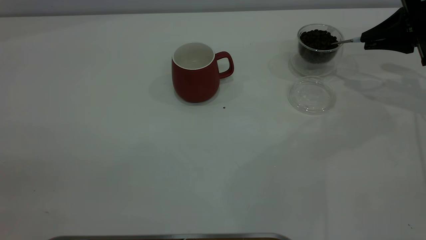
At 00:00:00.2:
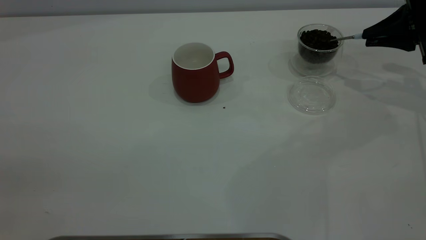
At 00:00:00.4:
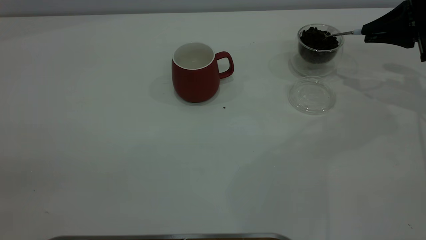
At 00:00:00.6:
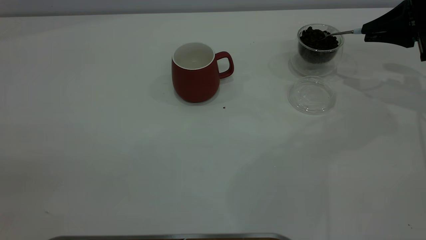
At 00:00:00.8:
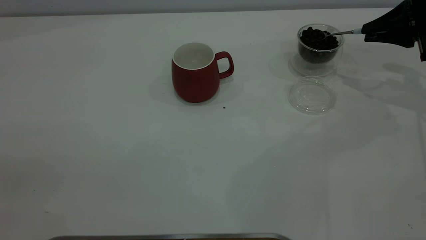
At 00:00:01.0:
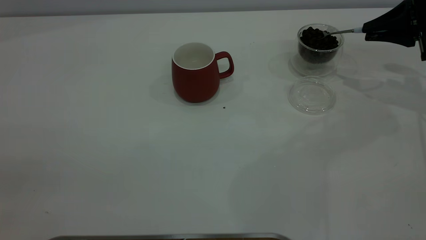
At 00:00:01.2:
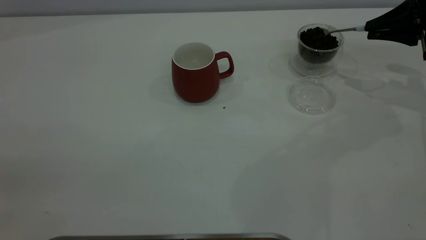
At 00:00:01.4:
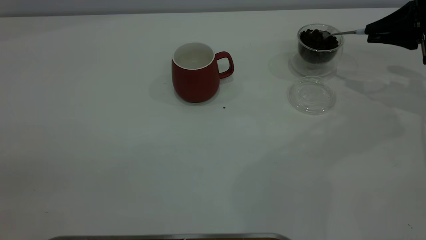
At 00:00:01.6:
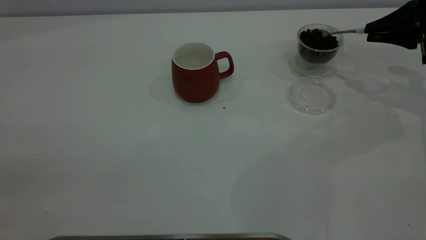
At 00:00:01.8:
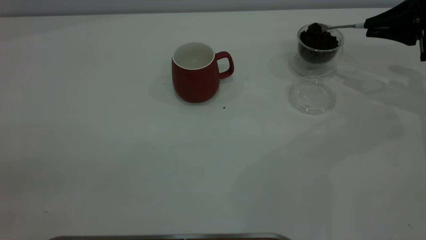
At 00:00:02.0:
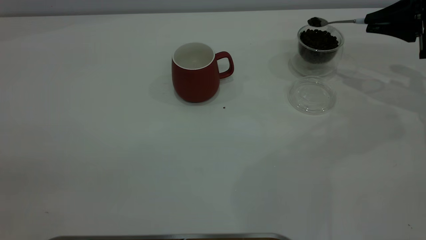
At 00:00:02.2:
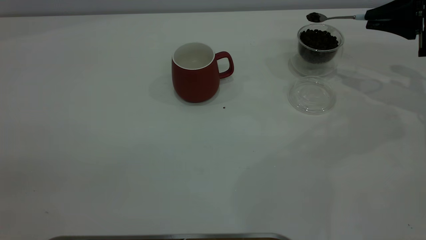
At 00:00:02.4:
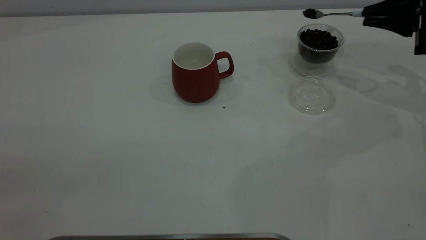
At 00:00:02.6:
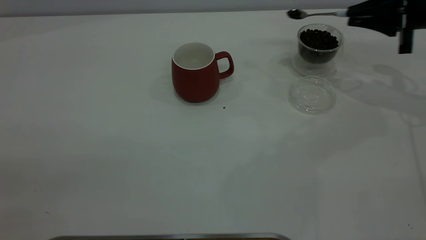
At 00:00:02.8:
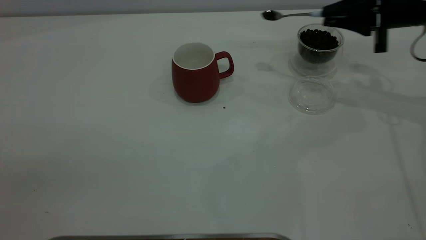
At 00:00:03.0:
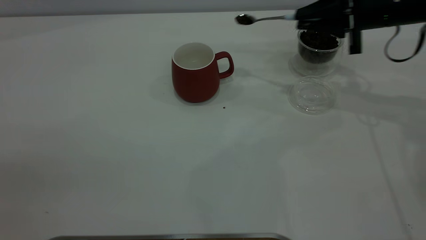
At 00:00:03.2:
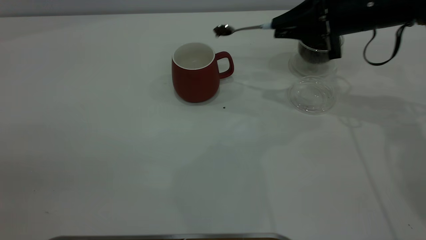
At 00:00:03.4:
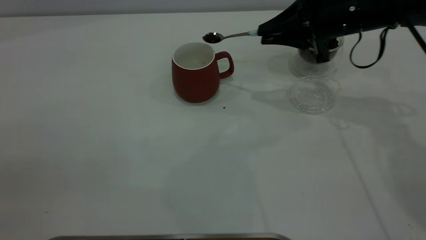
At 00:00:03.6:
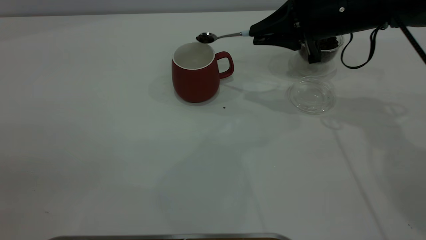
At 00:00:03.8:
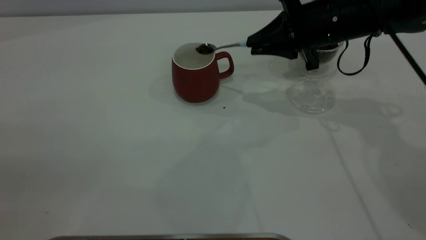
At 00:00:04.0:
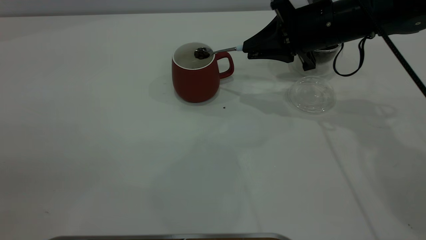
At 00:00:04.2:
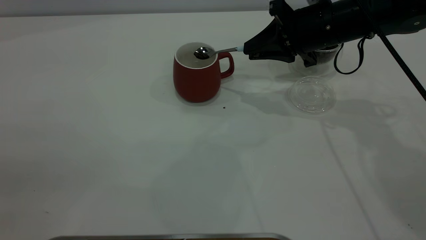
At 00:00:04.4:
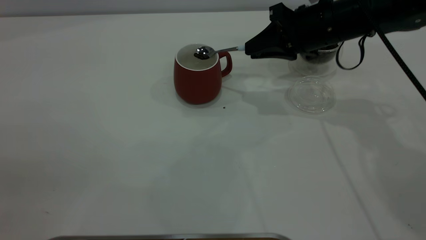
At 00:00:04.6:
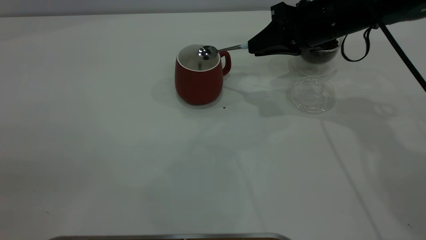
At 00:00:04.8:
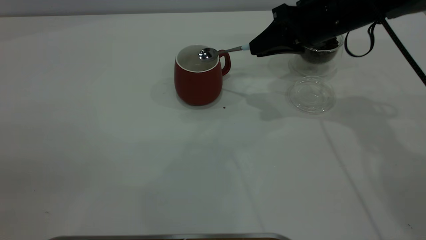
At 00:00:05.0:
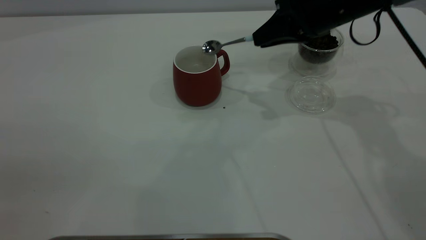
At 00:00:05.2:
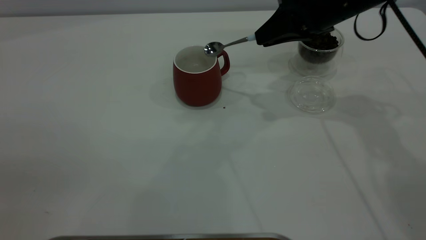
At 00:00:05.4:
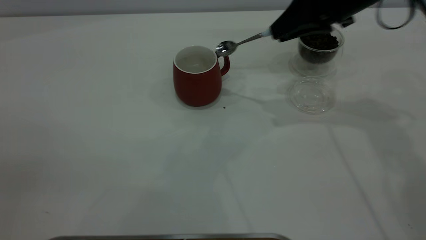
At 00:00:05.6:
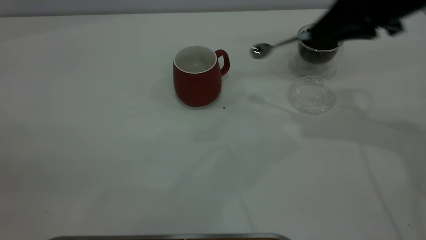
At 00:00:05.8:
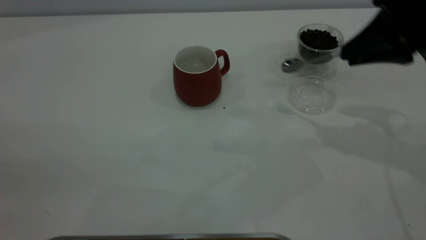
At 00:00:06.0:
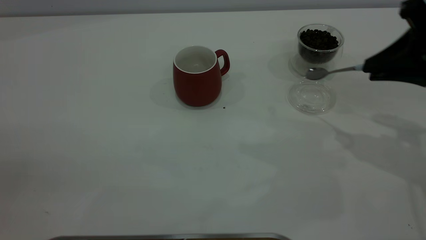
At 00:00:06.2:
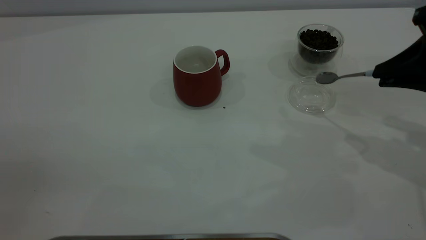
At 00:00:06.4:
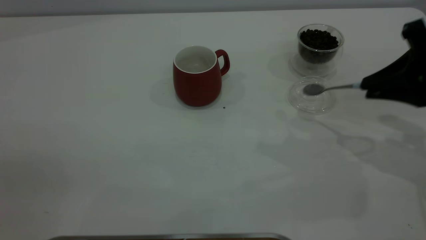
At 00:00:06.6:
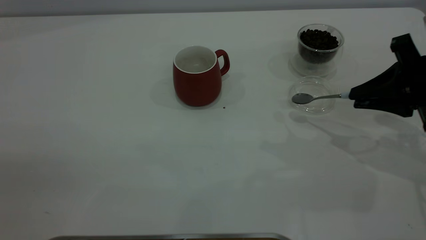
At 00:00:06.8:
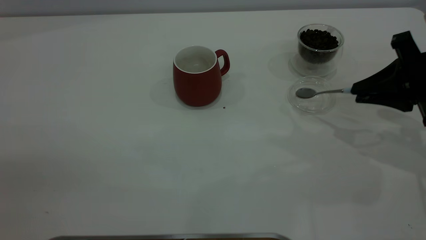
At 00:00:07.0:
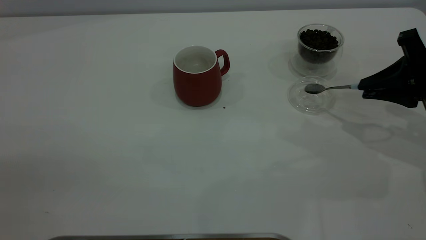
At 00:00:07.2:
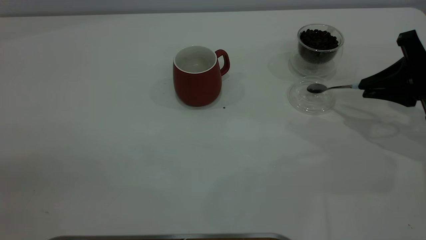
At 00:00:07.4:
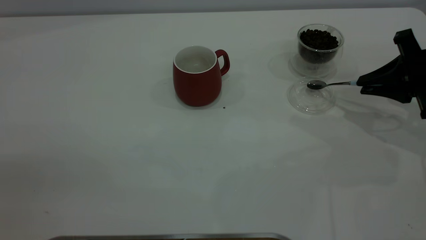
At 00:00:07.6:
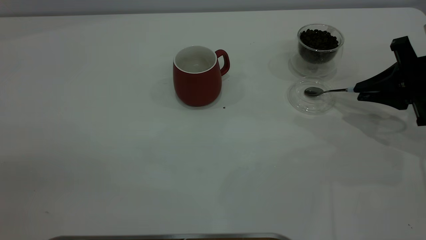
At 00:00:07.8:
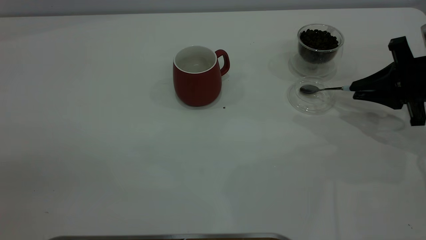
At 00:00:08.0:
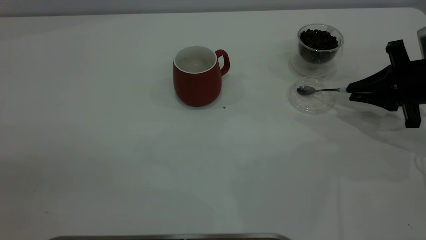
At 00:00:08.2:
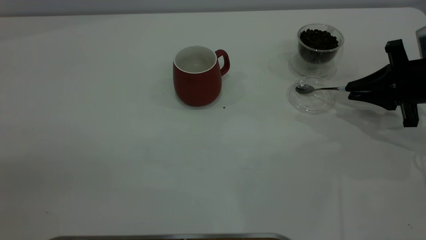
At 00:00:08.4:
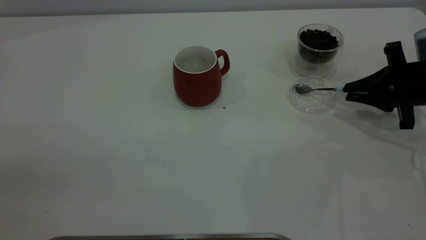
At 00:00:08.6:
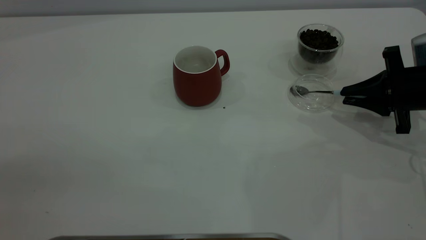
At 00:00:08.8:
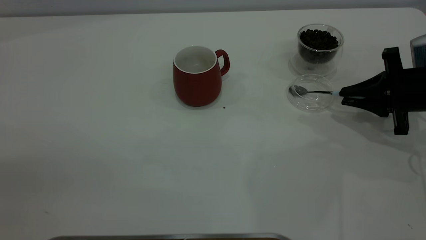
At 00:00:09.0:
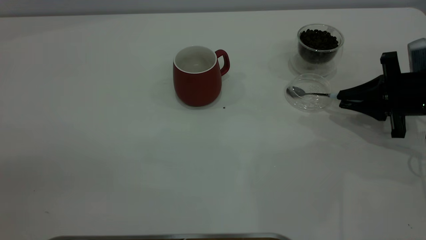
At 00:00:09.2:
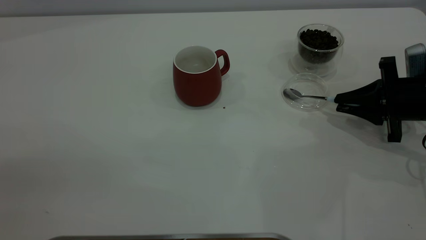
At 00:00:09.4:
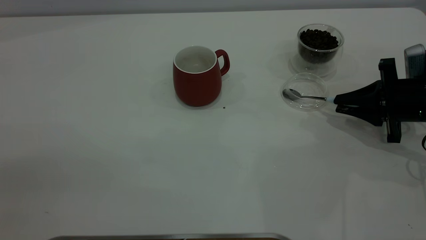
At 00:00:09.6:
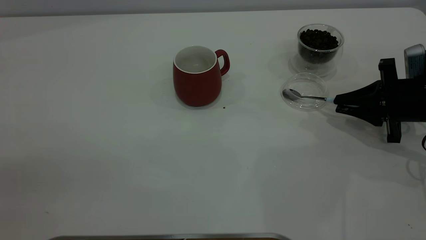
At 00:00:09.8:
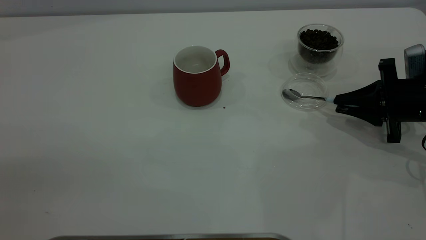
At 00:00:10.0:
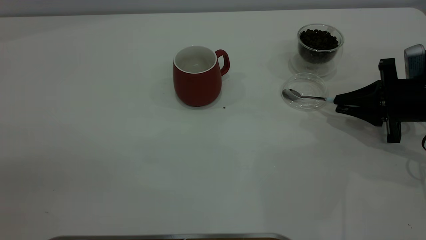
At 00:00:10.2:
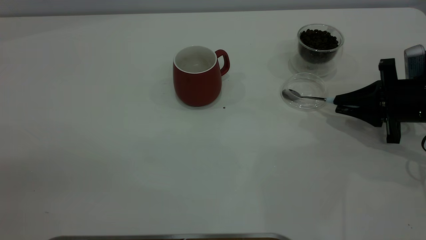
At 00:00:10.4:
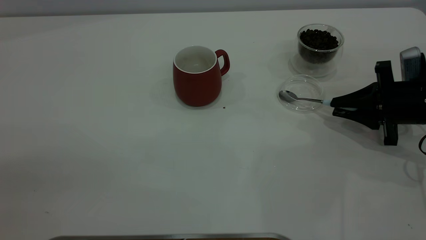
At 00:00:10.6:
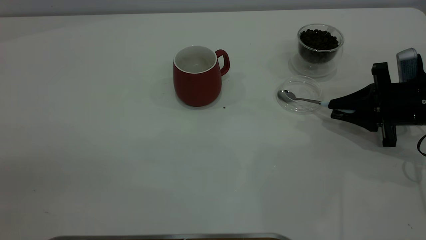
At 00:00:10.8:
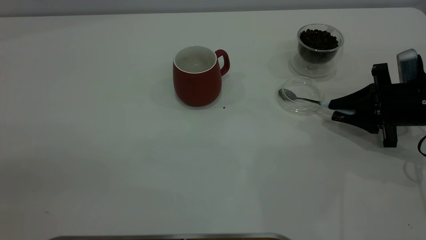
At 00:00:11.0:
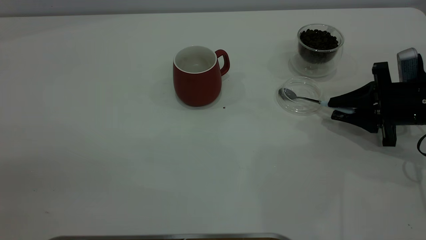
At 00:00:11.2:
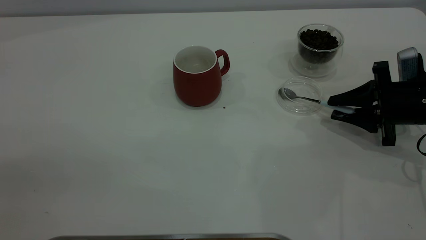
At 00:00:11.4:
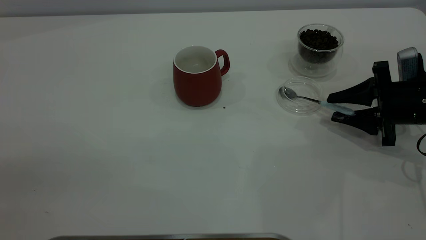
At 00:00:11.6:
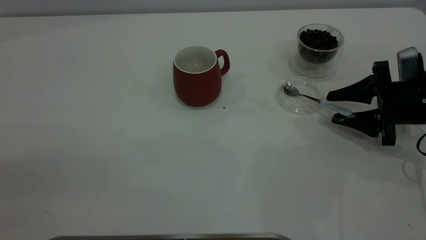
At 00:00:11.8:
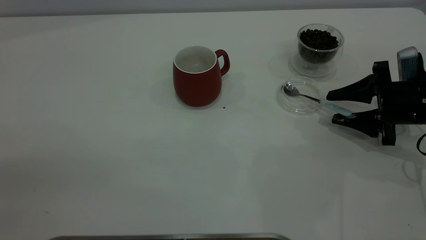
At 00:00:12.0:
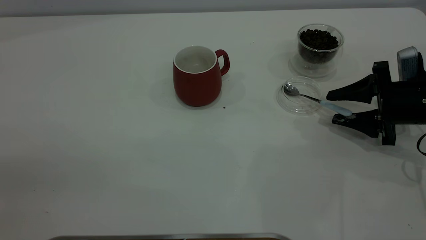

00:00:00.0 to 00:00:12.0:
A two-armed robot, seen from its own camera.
Task of the whole recording: the left gripper place the red cup in the center of the table, the right gripper take the blue spoon from the cup lid and scoop out the coffee beans from the coffee cup and put them into the red cup, the right gripper put the spoon back into the cup lid.
Step, 00:00:00.0 to 00:00:04.8: Scoop a spoonful of beans into the cup.
00:00:00.0 to 00:00:01.6: The grippers stay close to where they were, moving slightly.
00:00:01.6 to 00:00:03.0: The right gripper heads to the left, covering roughly 10 cm.
00:00:03.0 to 00:00:04.4: The right gripper shifts approximately 5 cm to the left.
00:00:04.4 to 00:00:06.0: The right gripper heads to the right and backward, covering approximately 20 cm.
00:00:06.0 to 00:00:07.6: The right gripper shifts approximately 10 cm downward and forward.
00:00:07.6 to 00:00:09.0: There are only small adjustments of the grippers.
00:00:09.0 to 00:00:10.4: Both grippers stay about where they are.
00:00:10.4 to 00:00:12.0: The right gripper opens its fingers.

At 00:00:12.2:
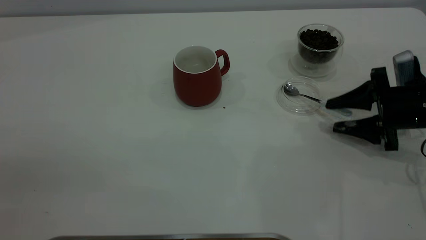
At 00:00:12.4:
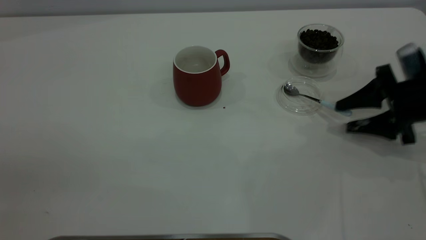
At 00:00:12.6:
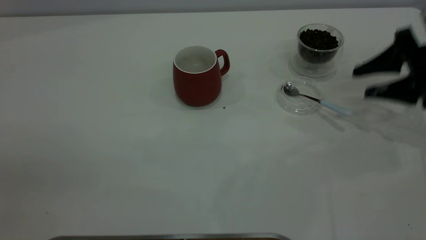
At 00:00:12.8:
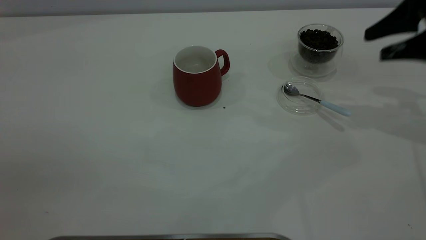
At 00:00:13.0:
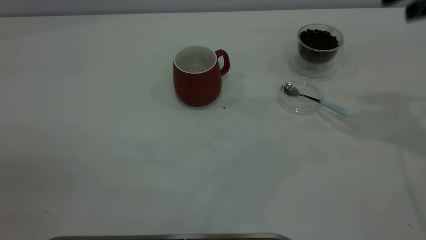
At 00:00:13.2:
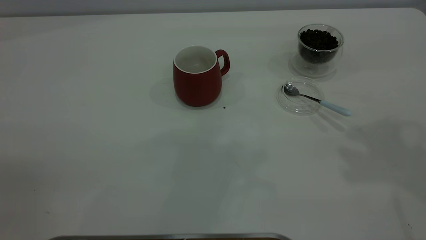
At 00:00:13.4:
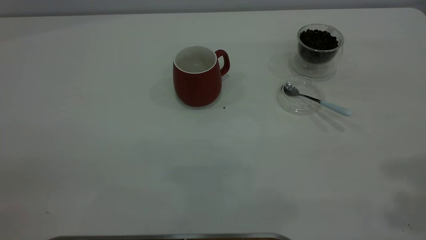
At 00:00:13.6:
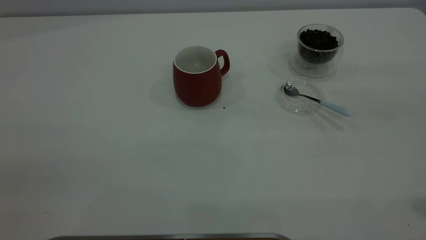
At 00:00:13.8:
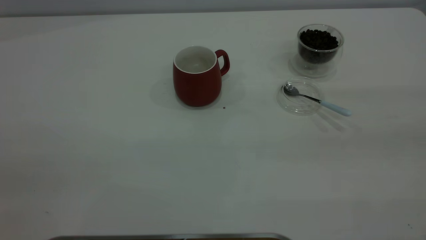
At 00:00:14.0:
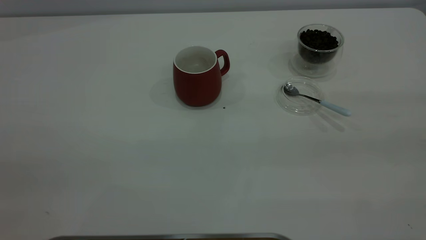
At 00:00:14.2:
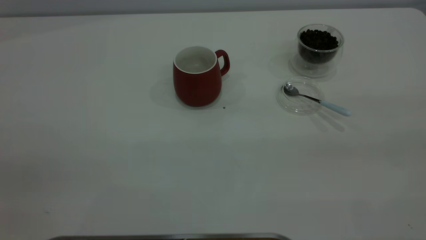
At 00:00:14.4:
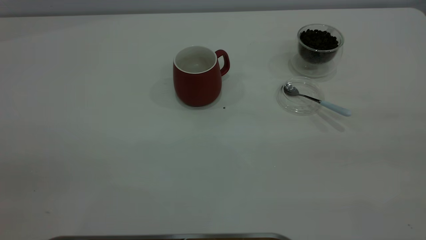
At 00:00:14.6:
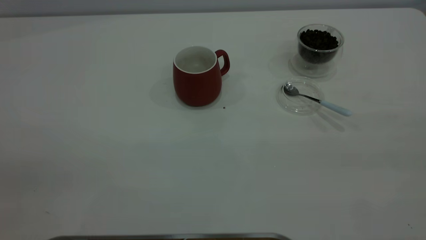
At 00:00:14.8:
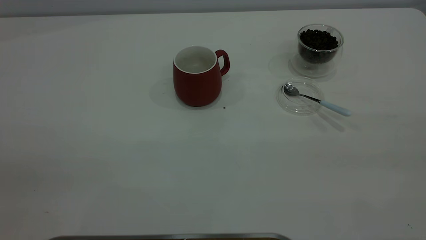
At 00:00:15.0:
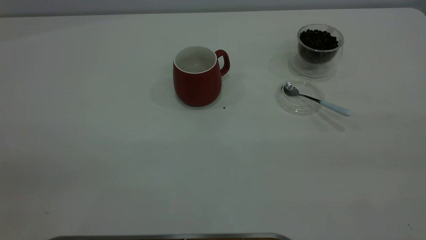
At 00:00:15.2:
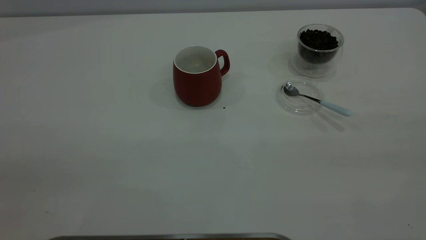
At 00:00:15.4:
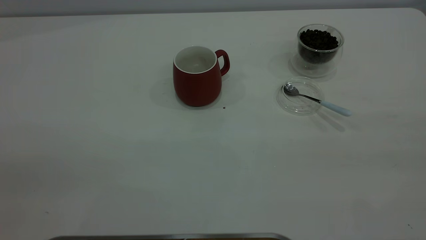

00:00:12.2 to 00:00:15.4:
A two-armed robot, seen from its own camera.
Task of the whole recording: the left gripper place the red cup in the center of the table, the right gripper take the blue spoon from the cup lid and scoop out the coffee beans from the coffee cup and put them into the red cup, the right gripper put the spoon back into the cup lid.
00:00:12.2 to 00:00:13.8: The right gripper heads upward and backward, covering about 40 cm.
